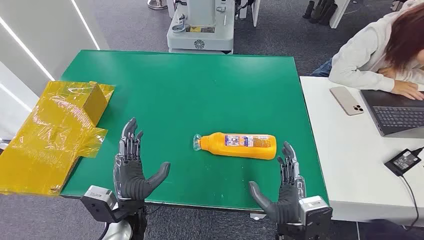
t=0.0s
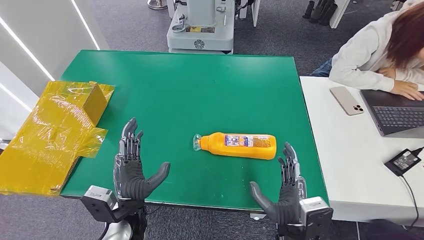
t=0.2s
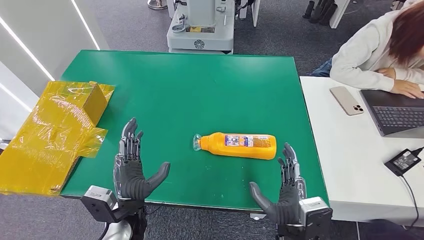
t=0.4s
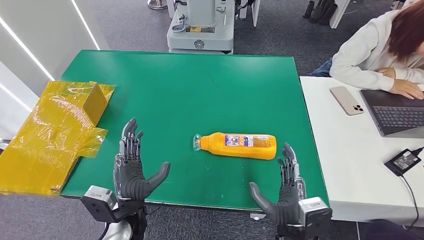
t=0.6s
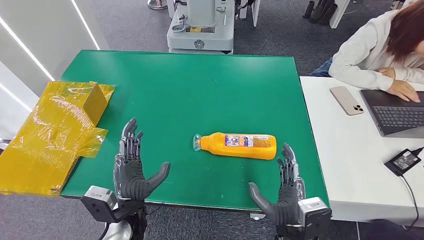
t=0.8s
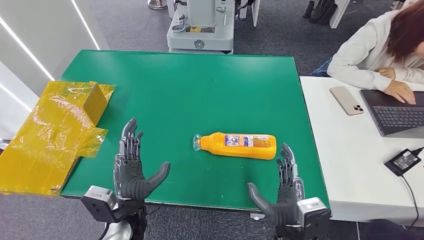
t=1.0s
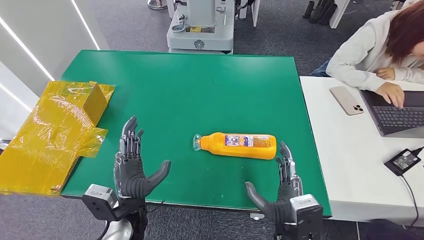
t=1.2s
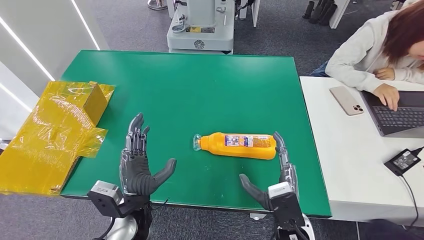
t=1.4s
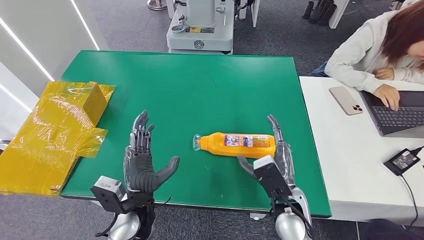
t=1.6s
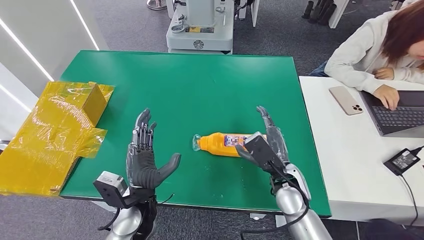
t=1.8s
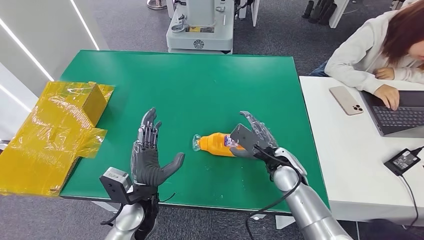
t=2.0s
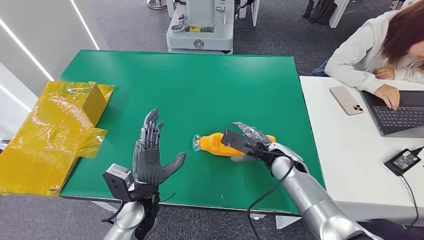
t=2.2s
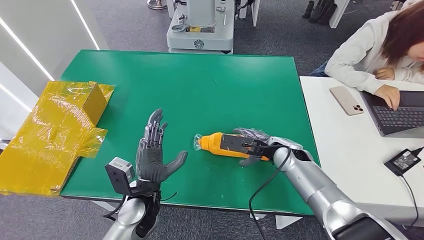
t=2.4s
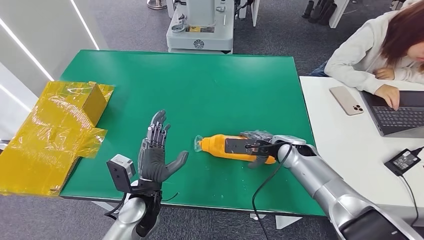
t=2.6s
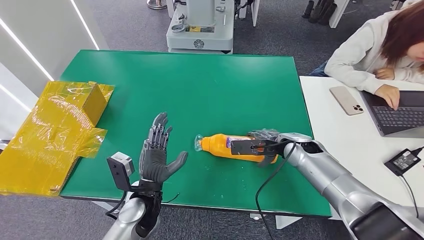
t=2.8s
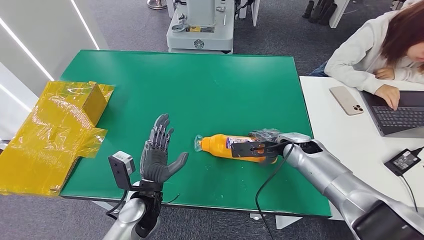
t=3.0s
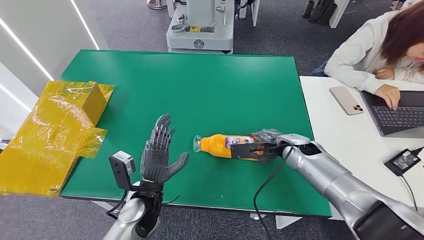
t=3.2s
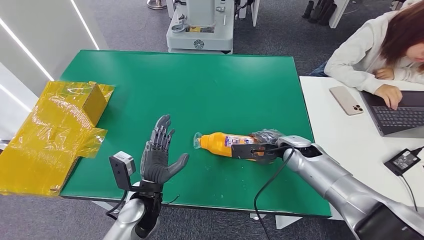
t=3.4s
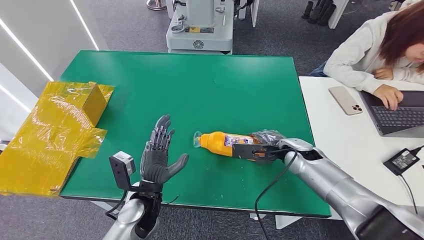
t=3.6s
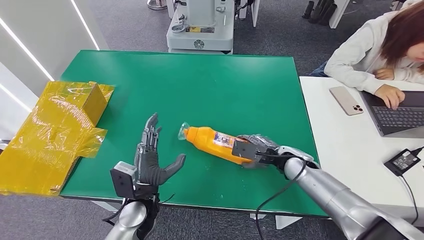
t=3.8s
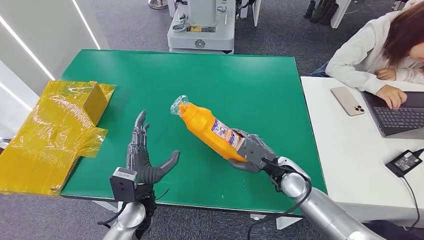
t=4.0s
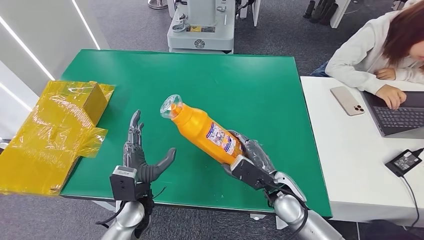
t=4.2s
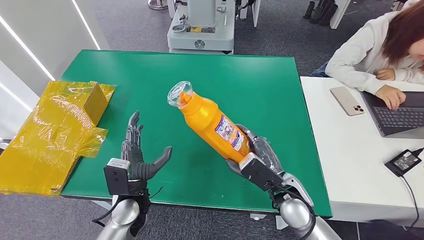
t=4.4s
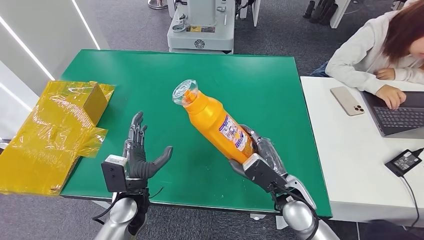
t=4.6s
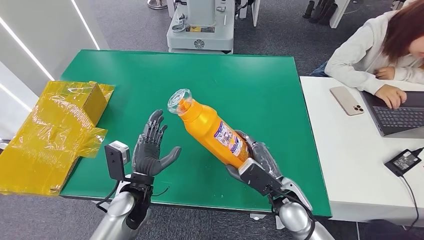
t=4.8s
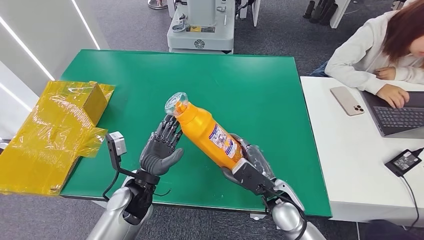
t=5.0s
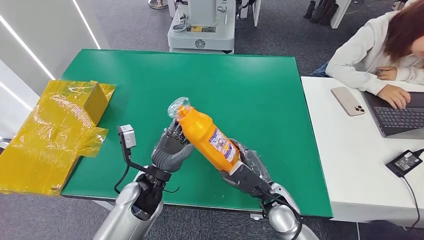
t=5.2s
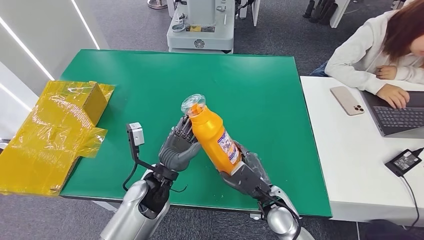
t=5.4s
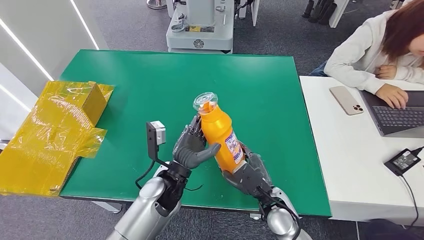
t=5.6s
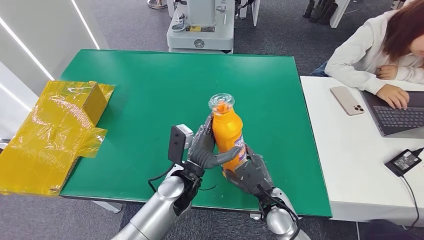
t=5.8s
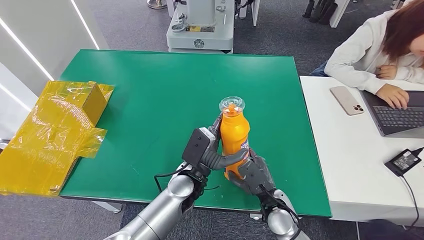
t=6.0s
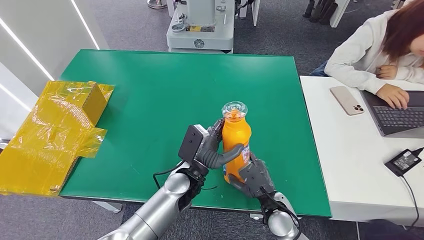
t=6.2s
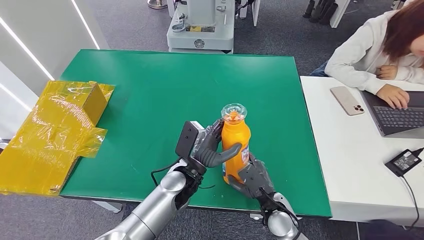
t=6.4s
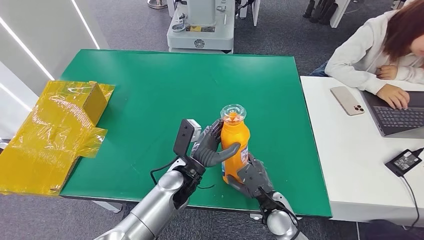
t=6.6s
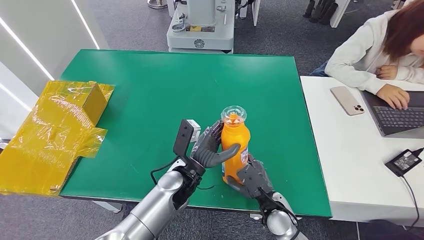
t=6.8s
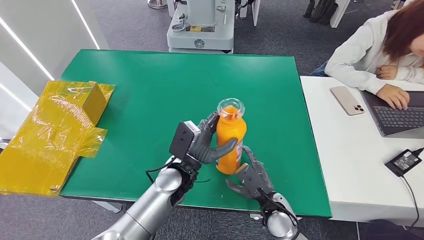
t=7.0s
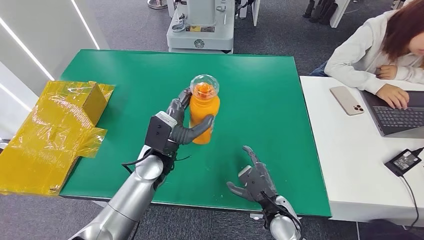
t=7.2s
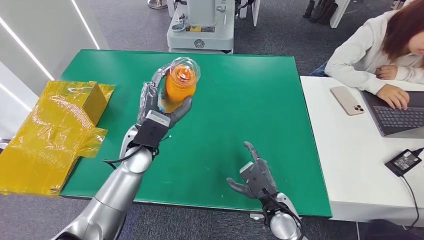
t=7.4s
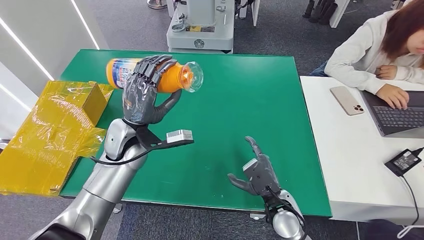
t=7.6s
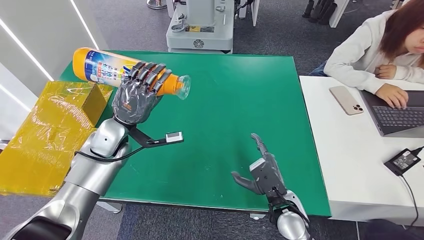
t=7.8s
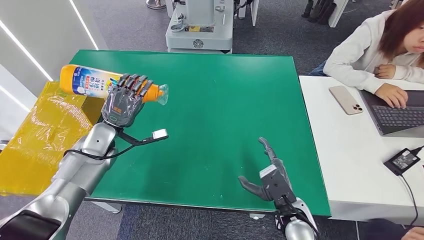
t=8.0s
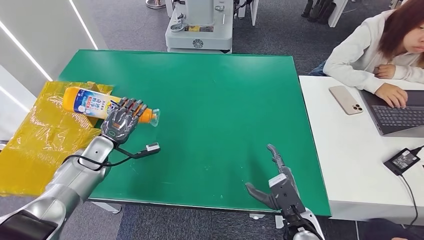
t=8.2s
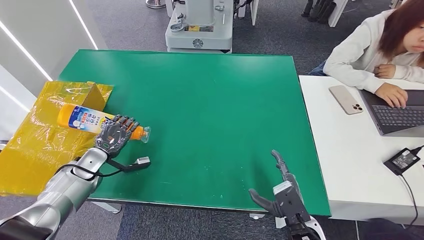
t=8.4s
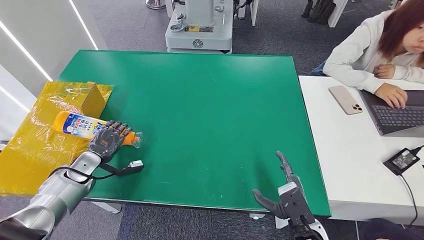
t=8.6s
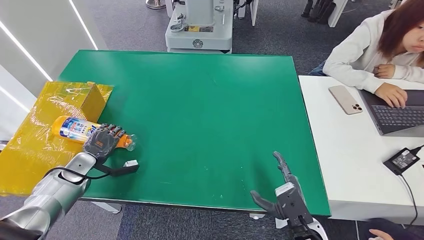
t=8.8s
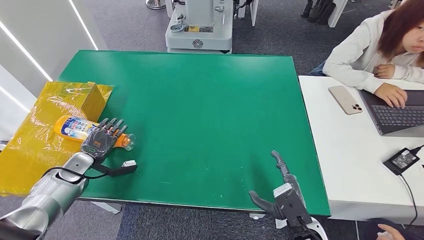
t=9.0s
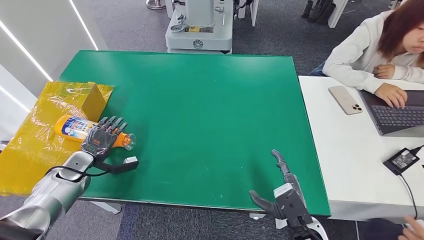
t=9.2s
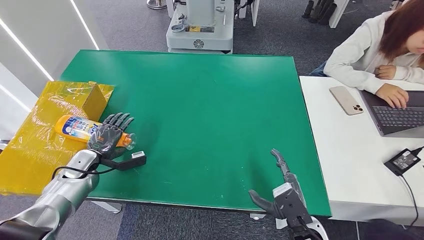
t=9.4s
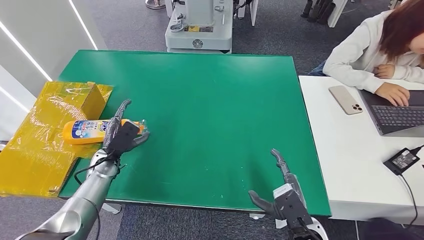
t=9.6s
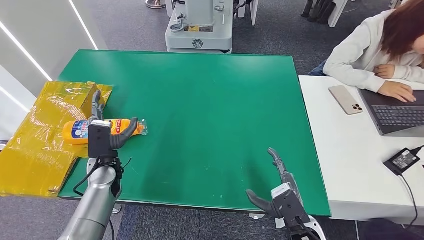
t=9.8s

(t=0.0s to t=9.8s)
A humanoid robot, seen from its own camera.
Step, t=0.0s - t=4.4s: Pick up the bottle from the table.
Step, t=5.0s - t=9.8s: Turn the bottle to the front side.
t=1.4s - t=2.8s: The right hand goes approximately 25 cm forward and to the right.
t=2.8s - t=4.2s: The right hand heads backward, to the left and downward, covering approximately 15 cm.
t=4.2s - t=5.6s: The right hand shifts by some 5 cm. Meanwhile the left hand travels to the right by some 10 cm.
t=8.4s - t=9.8s: The left hand travels to the right by roughly 10 cm.

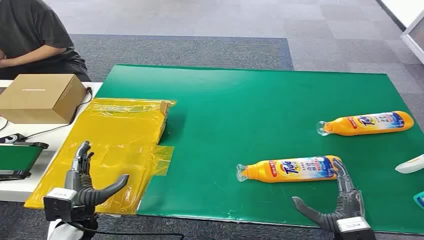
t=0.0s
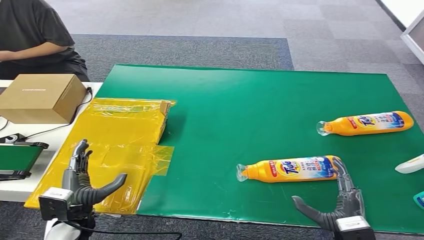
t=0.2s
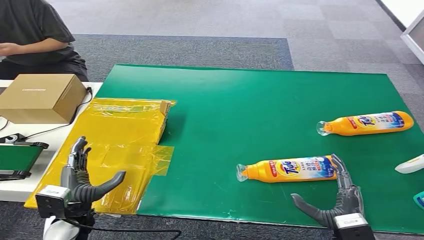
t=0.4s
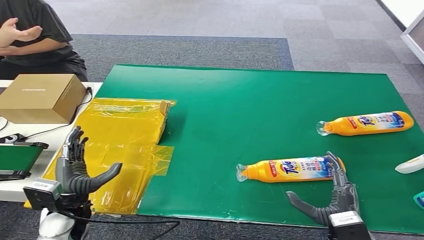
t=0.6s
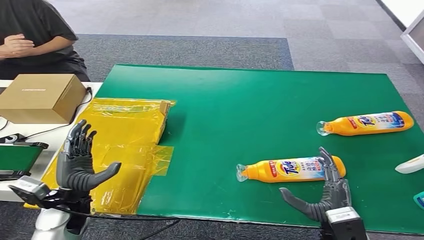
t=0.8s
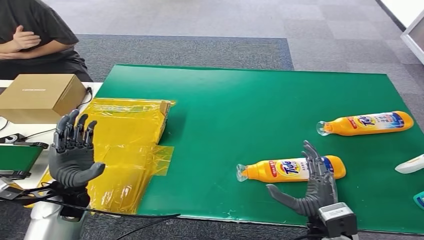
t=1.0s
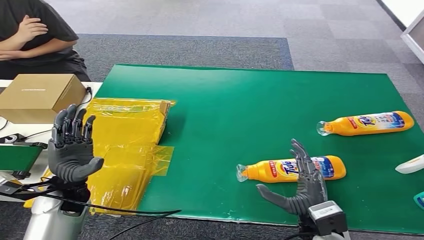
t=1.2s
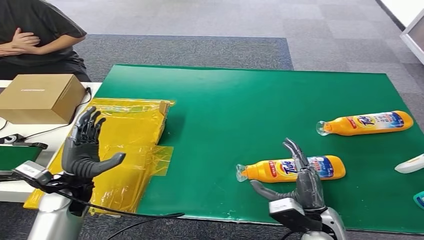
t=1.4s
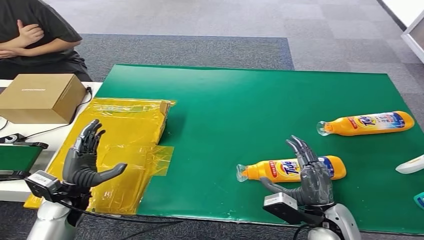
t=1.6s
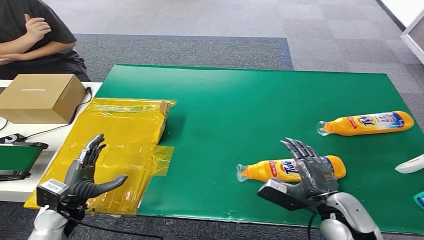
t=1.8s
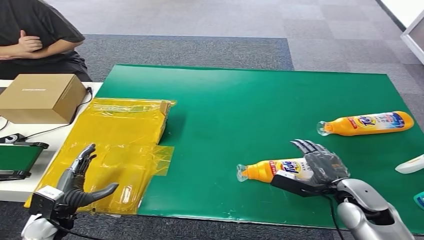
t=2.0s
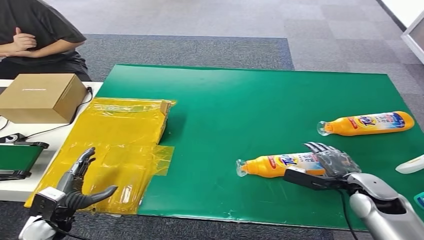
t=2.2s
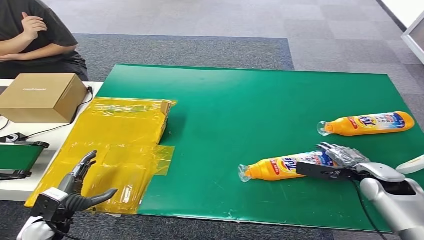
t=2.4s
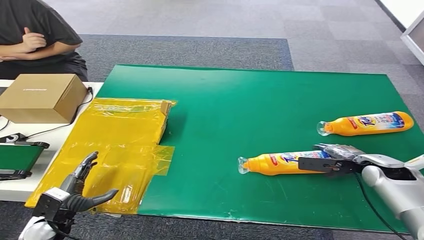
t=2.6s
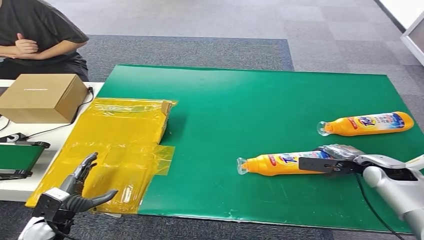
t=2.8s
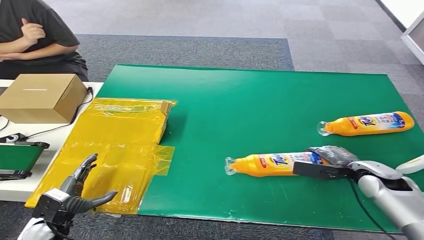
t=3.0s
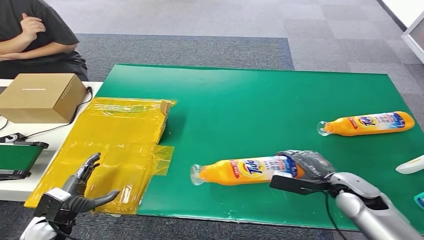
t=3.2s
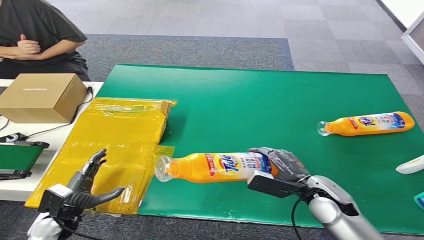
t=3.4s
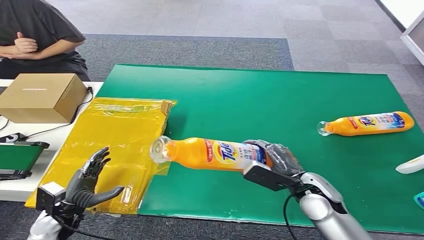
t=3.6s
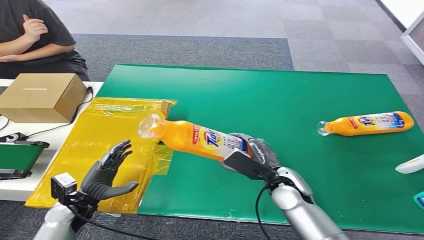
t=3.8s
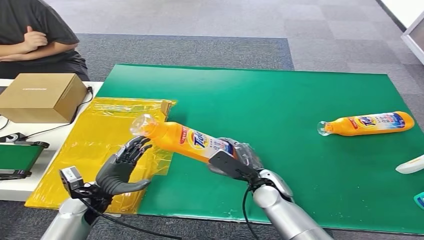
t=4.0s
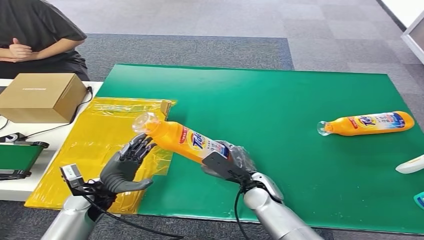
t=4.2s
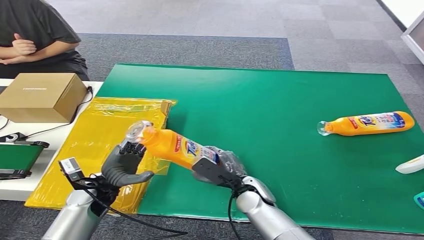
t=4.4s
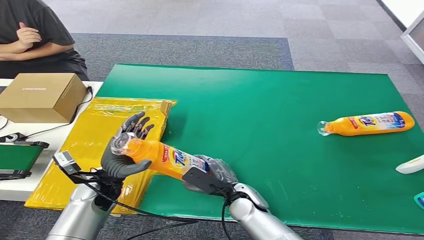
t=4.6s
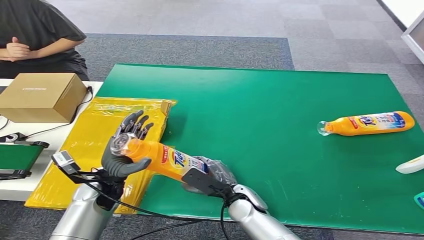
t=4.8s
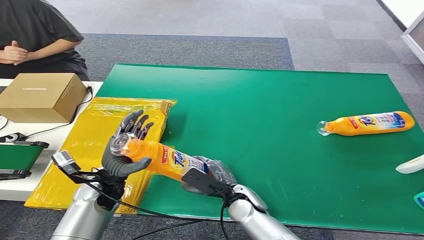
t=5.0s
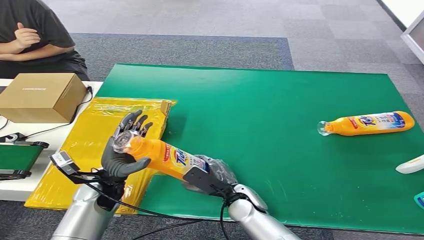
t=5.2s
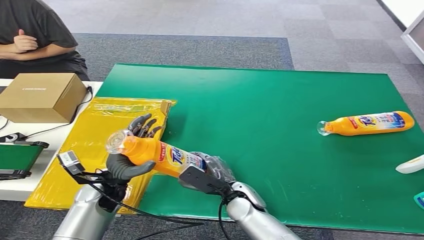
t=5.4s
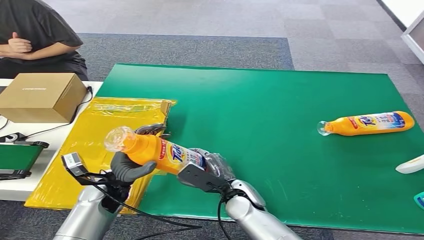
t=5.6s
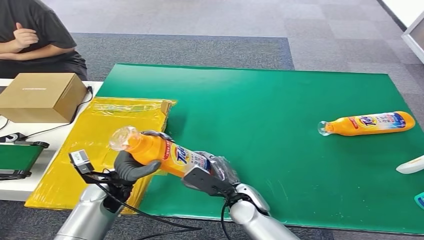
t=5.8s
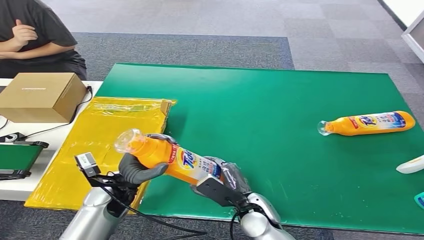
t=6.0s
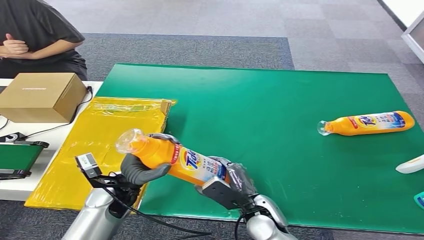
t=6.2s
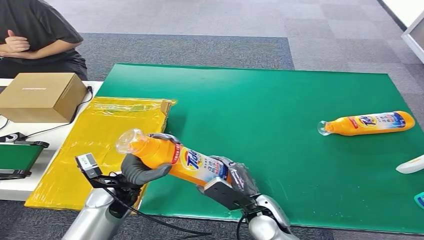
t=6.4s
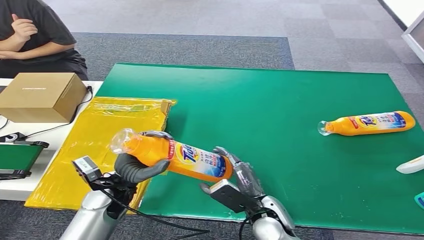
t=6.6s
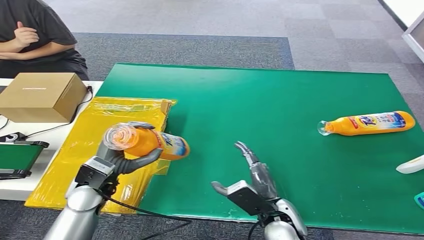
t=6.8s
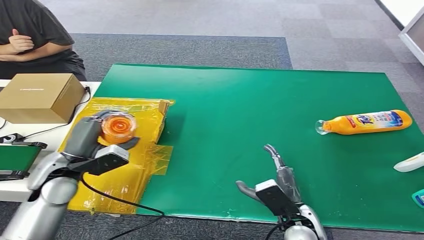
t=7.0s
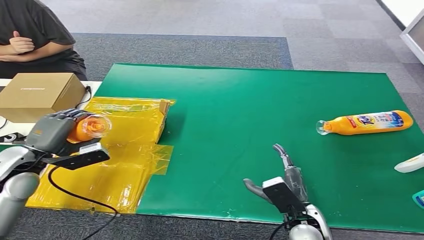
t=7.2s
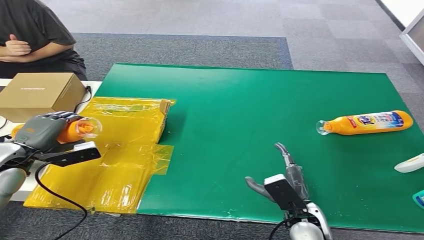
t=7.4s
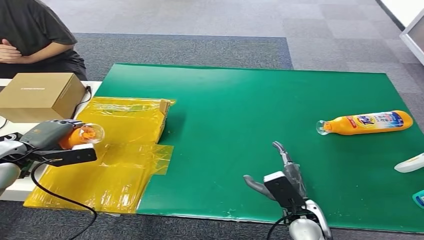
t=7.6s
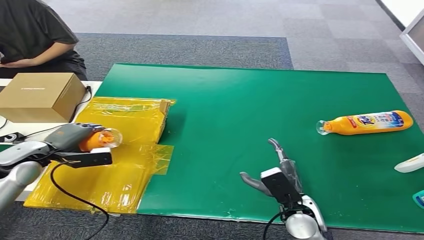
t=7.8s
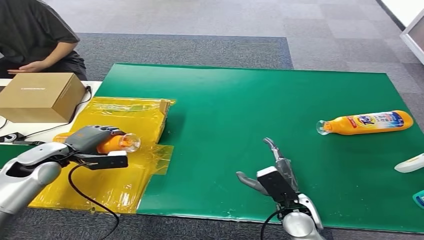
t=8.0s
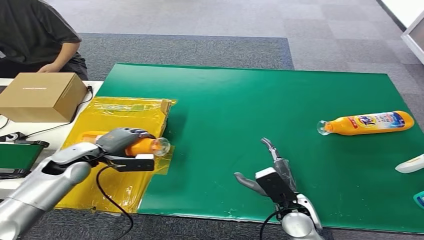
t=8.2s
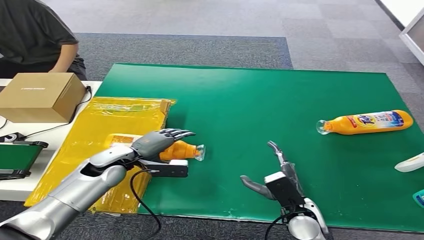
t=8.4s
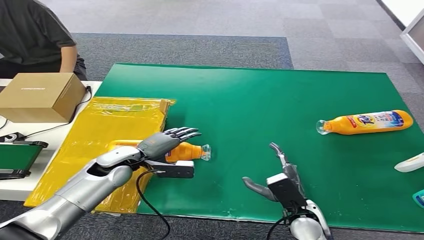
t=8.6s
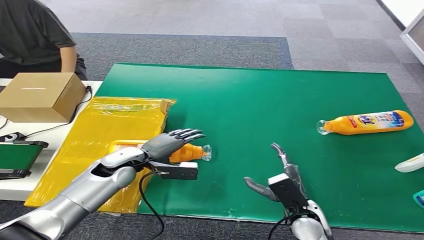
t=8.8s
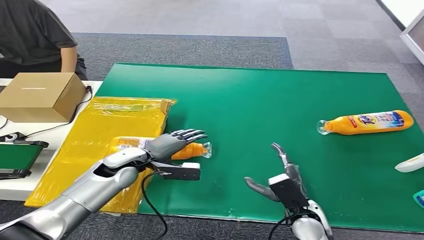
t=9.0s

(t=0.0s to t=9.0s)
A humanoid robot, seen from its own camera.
Step, t=0.0s - t=3.2s: Pick up the bottle from the table.
Step, t=3.4s - t=8.8s: Turn the bottle to the front side.
t=4.4s - t=6.0s: The right hand is displaced backward by approximately 5 cm.
t=7.6s - t=9.0s: The left hand goes about 20 cm to the right.
